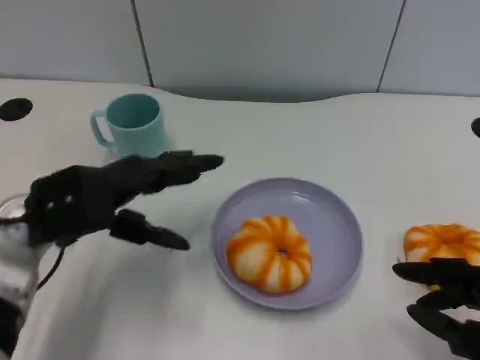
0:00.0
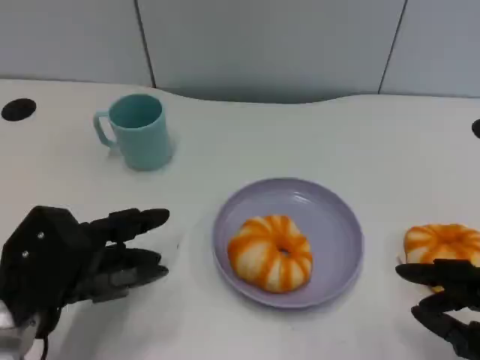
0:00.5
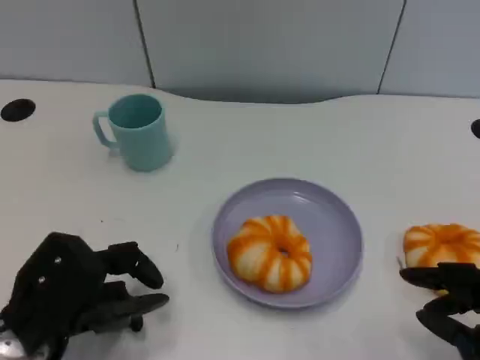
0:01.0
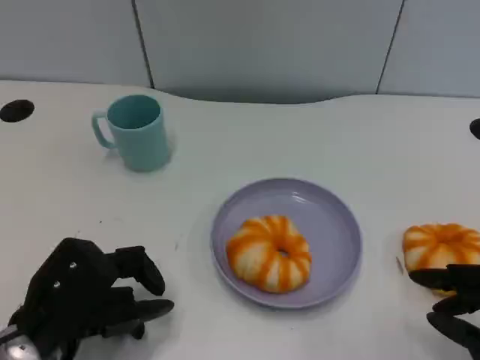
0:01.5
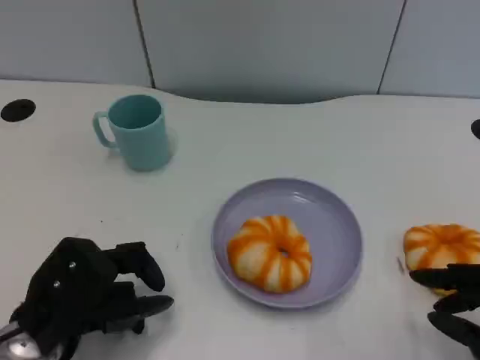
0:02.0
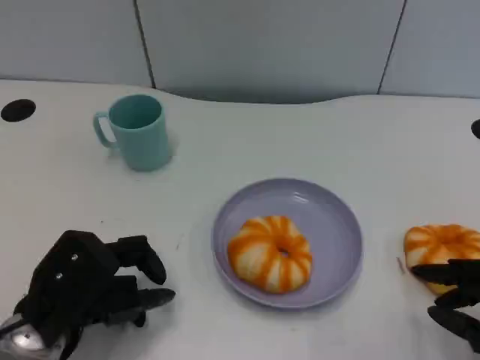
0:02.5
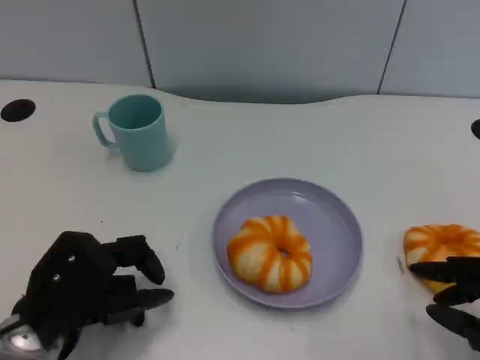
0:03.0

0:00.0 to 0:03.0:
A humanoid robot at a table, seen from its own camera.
Task of the whole recording: Grasp the bread from the table and place it into the plate.
0:00.0 to 0:01.5: The left hand heads backward and downward, covering about 10 cm.
0:01.5 to 0:03.0: Neither hand changes place.

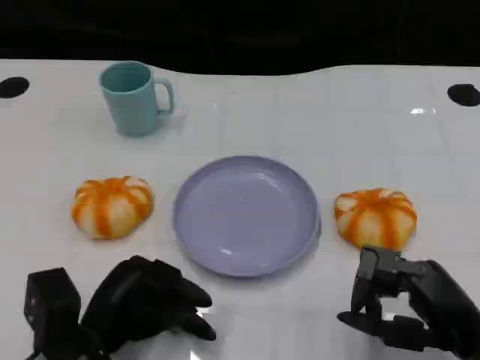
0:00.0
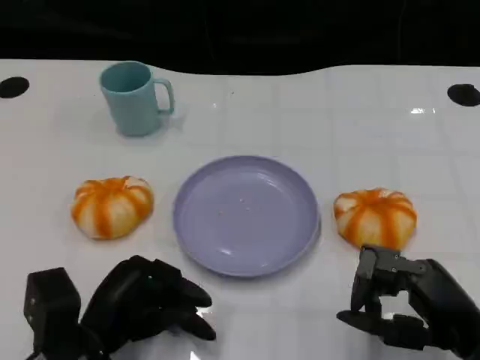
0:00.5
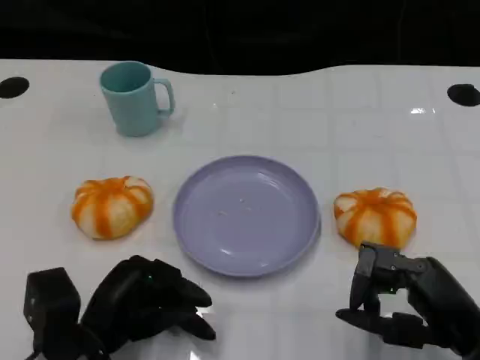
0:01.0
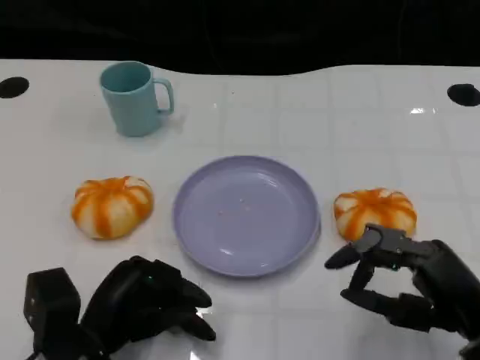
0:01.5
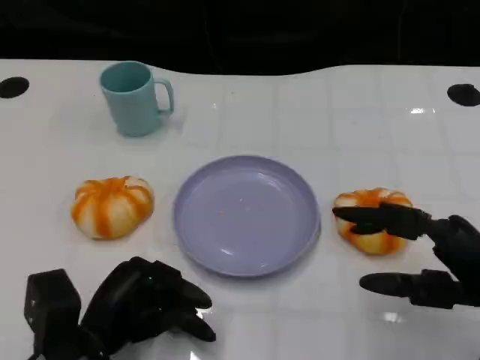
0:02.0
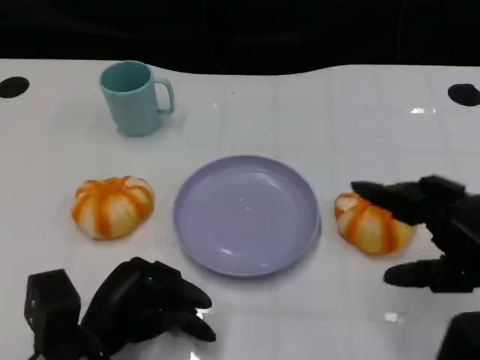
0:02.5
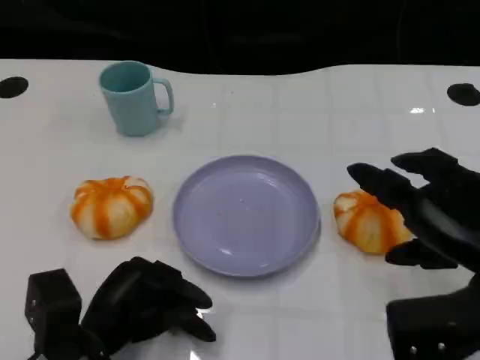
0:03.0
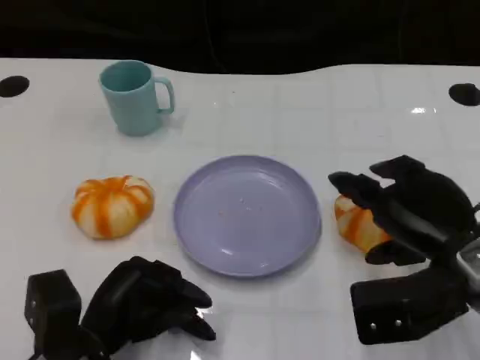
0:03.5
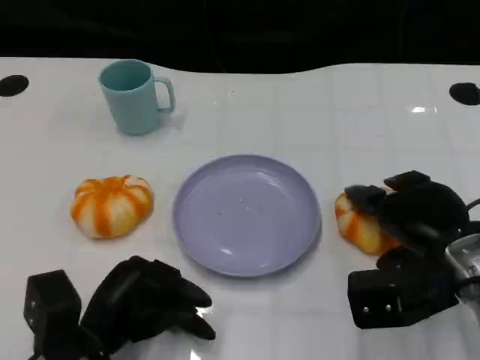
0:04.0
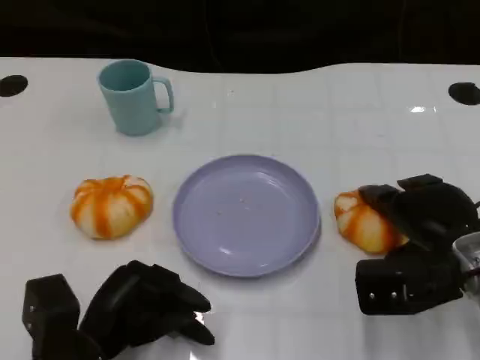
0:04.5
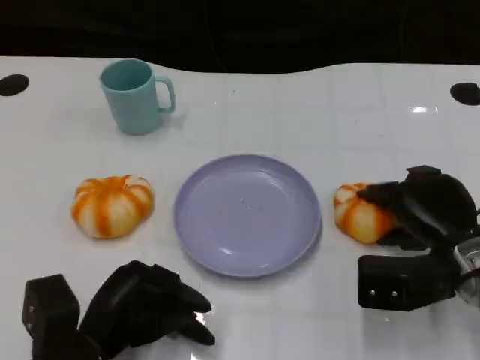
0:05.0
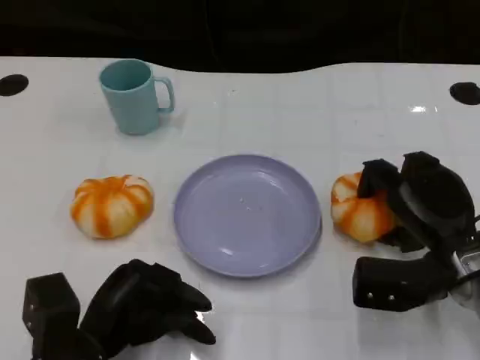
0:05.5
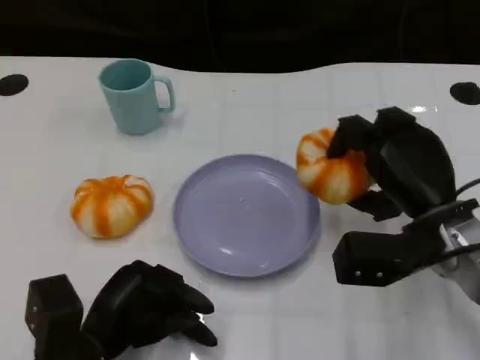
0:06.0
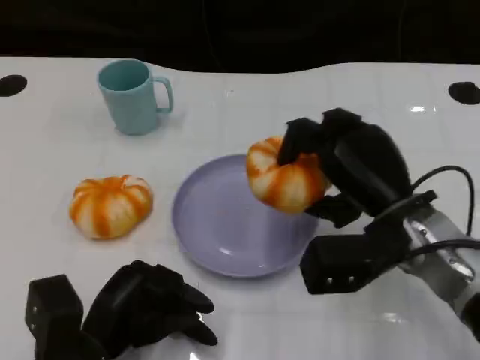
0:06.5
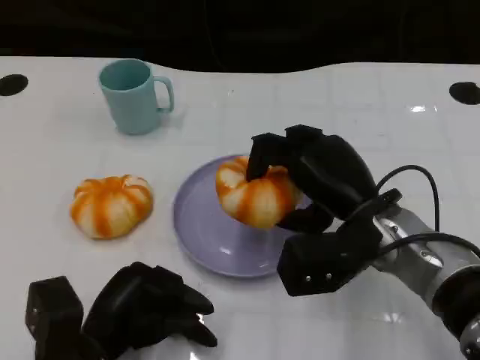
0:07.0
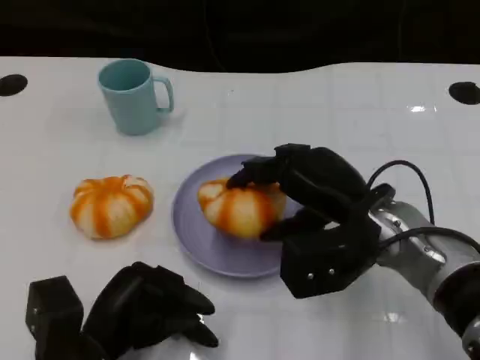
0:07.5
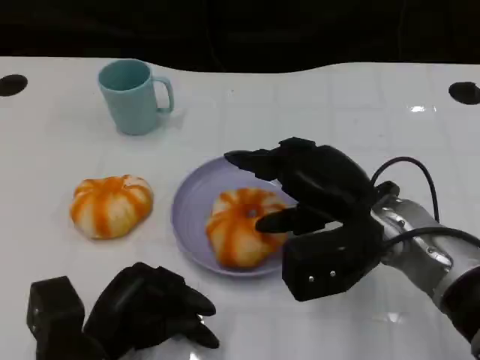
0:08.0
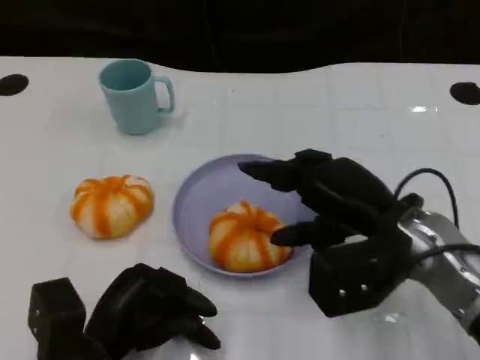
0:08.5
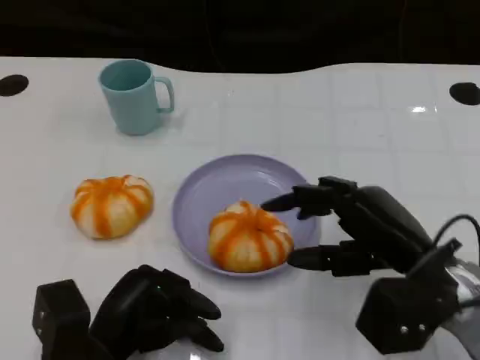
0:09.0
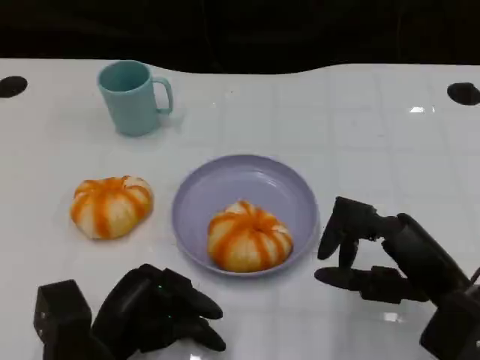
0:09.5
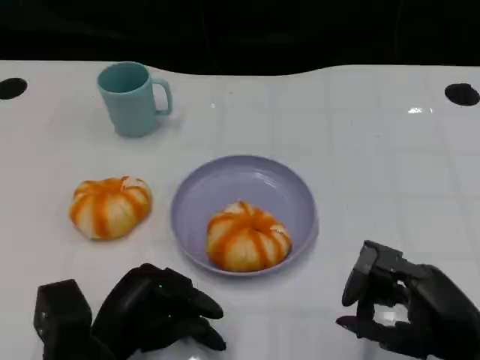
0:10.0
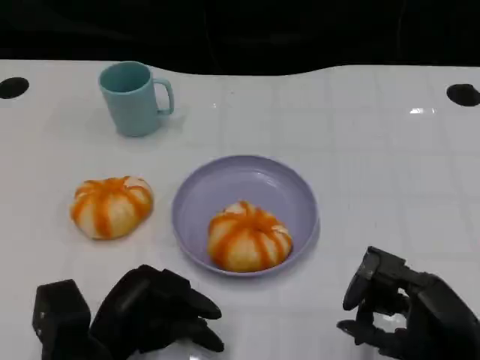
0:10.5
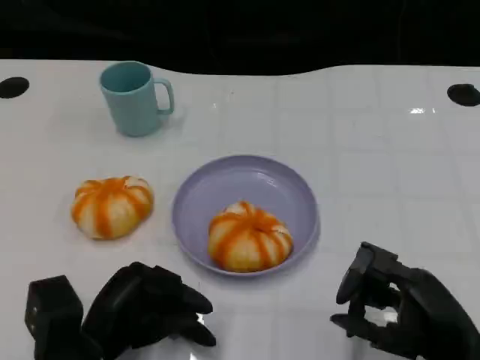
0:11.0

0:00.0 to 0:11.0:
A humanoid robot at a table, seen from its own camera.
Task of the whole recording: Grasp the bread from the table and place it into the plate.
0:00.0 to 0:02.0: The right hand is displaced upward by about 5 cm.
0:02.0 to 0:03.5: The right hand ends up about 5 cm from where it was.
0:03.5 to 0:05.5: The right hand heads downward, covering about 5 cm.
0:05.5 to 0:07.5: The right hand shifts approximately 10 cm to the left and upward.
0:07.5 to 0:09.0: The right hand goes roughly 10 cm to the right and backward.
0:09.0 to 0:11.0: The right hand goes some 5 cm backward.

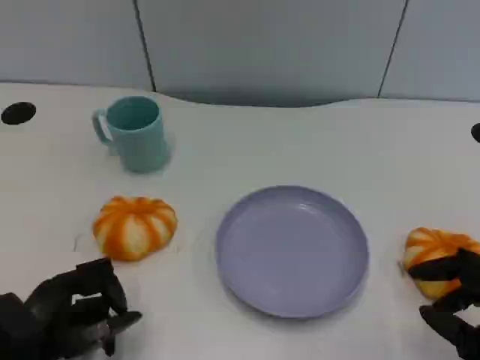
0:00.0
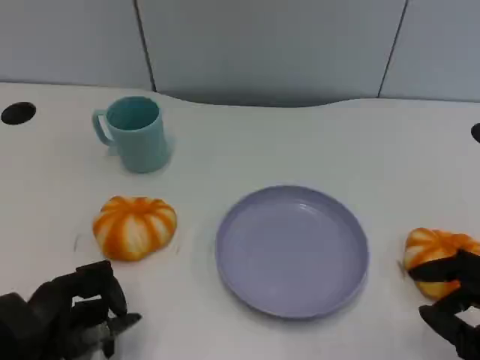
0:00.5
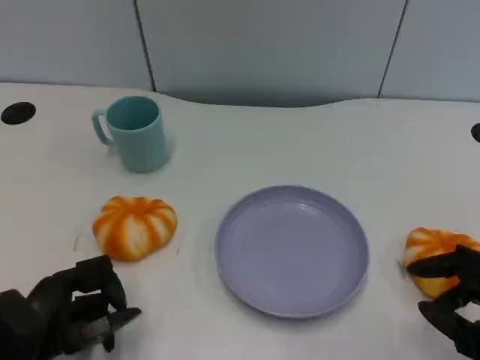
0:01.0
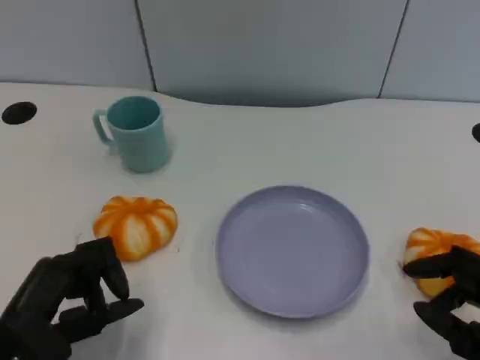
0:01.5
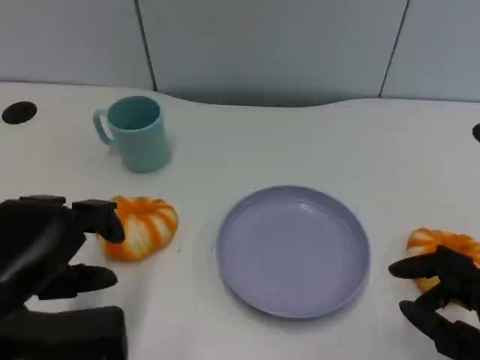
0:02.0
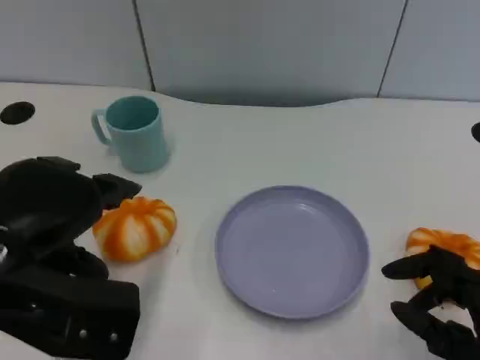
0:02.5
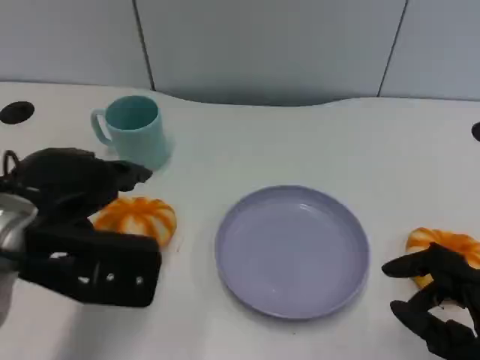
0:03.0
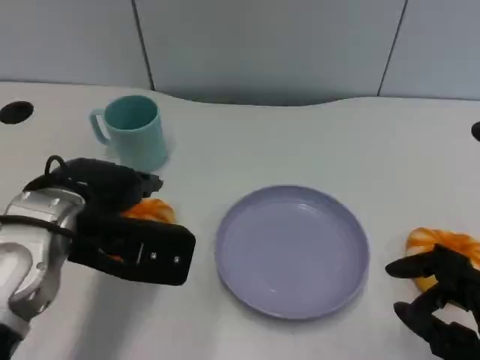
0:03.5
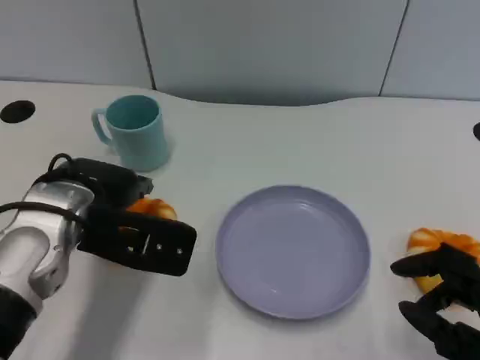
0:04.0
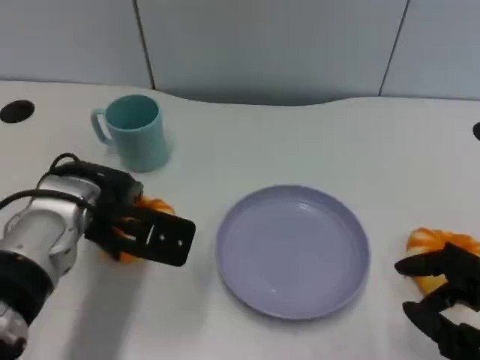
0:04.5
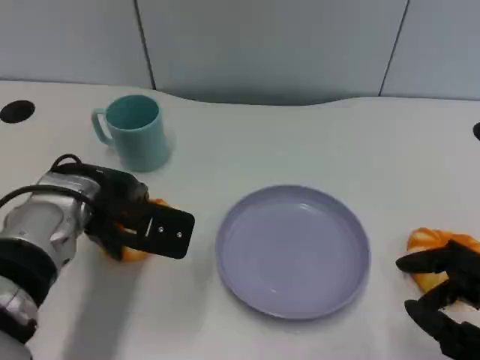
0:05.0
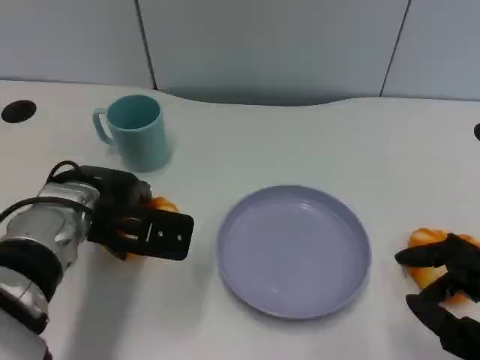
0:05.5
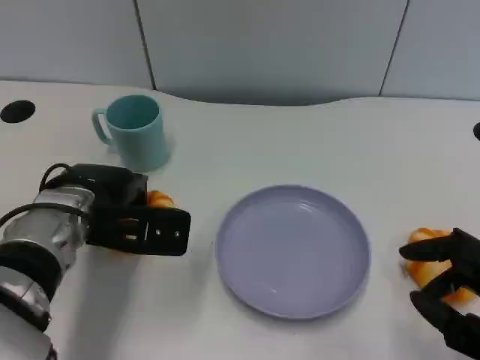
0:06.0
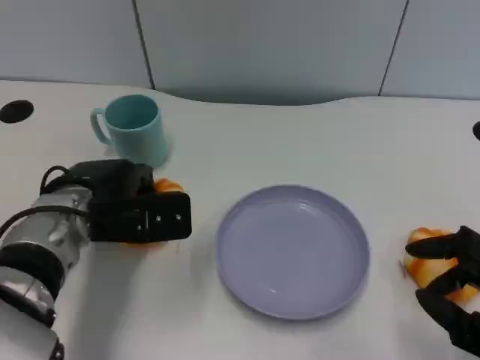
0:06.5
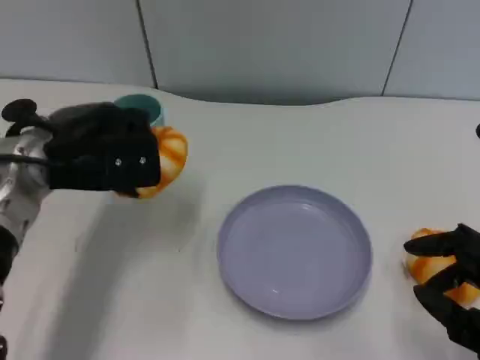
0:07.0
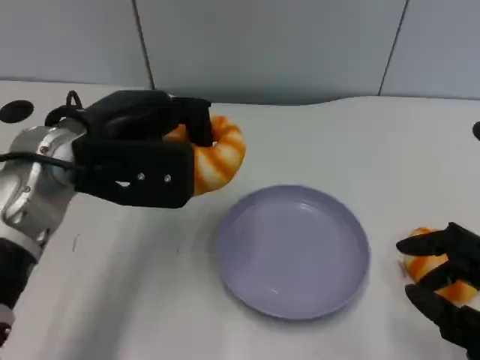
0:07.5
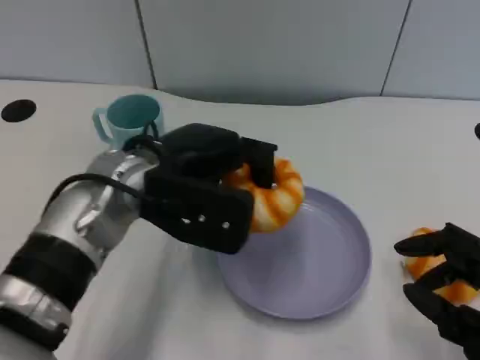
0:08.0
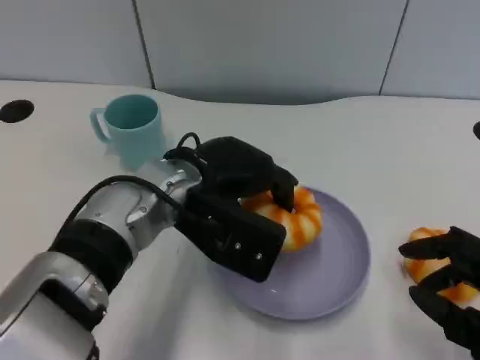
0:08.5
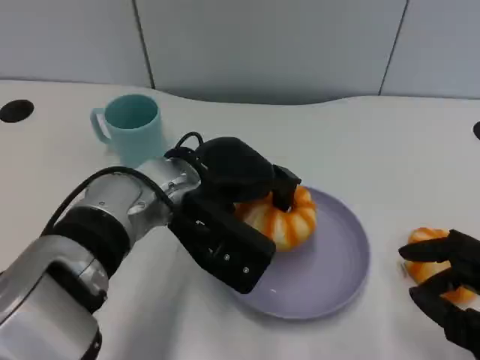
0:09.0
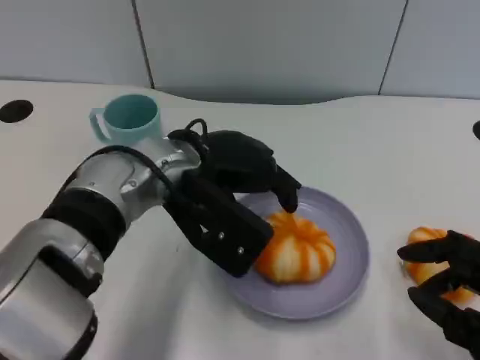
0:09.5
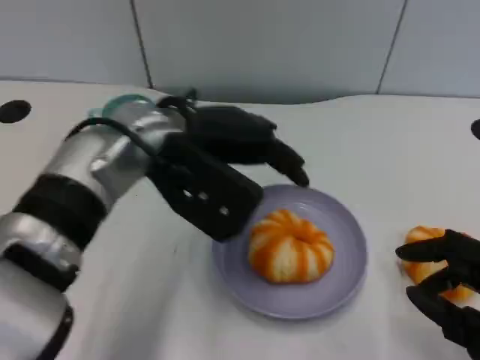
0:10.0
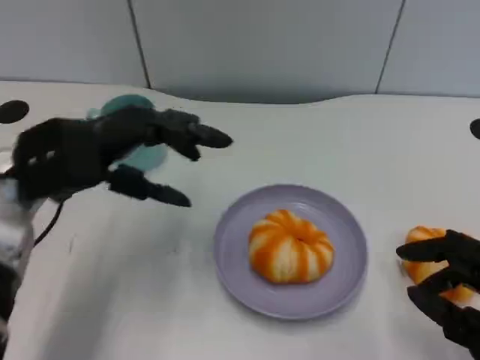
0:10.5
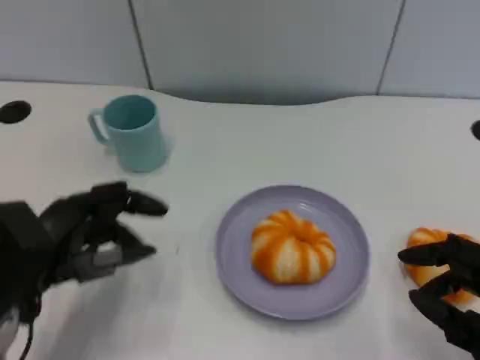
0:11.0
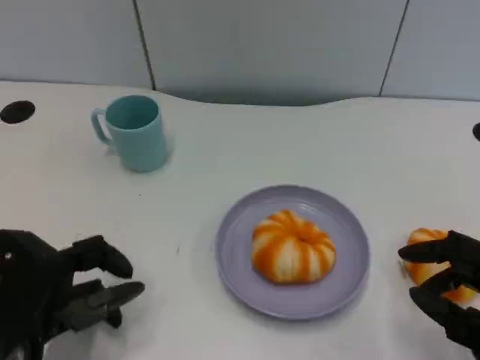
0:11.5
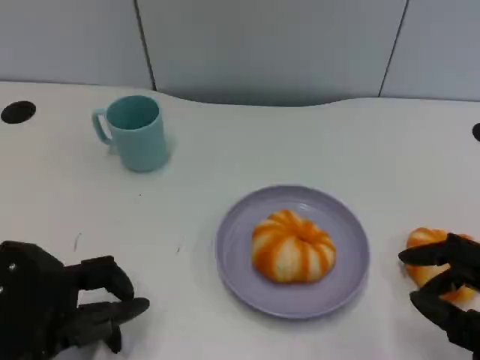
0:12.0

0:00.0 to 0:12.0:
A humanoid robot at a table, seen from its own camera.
Task of the whole recording: Grasp the bread from the table and place it into the plate.
0:00.0 to 0:02.0: The left hand shifts approximately 10 cm upward.
0:02.0 to 0:04.0: The left hand shifts about 15 cm forward and to the right.
0:04.0 to 0:06.0: The hands move only a little.
0:06.0 to 0:08.0: The left hand moves to the right and upward, about 10 cm.
0:08.0 to 0:10.0: The left hand ends up approximately 5 cm from where it was.
0:10.0 to 0:12.0: The left hand travels backward, downward and to the left by approximately 25 cm.
